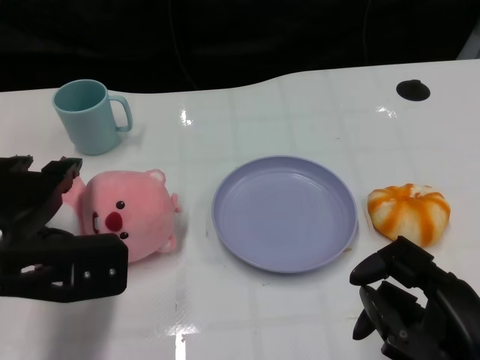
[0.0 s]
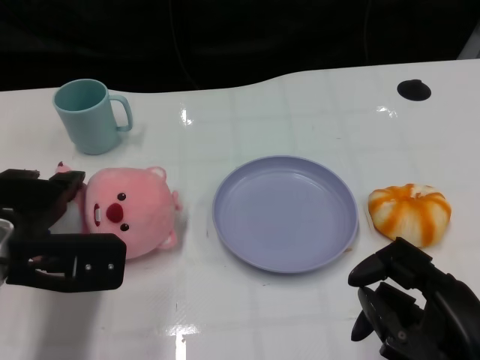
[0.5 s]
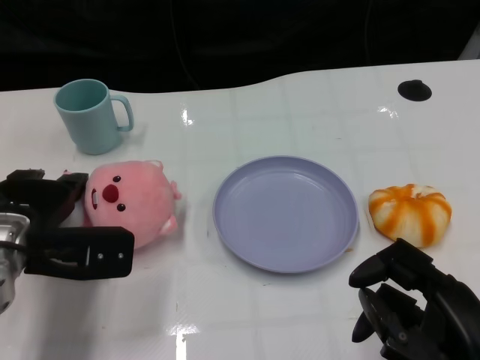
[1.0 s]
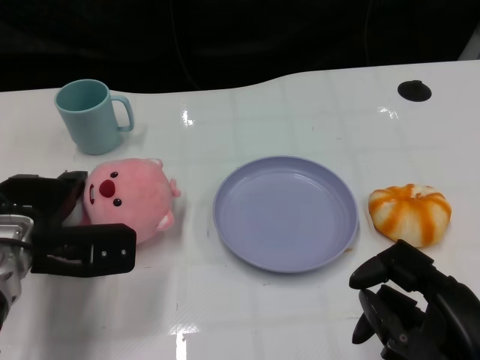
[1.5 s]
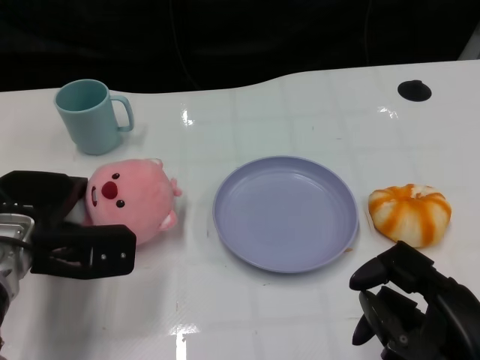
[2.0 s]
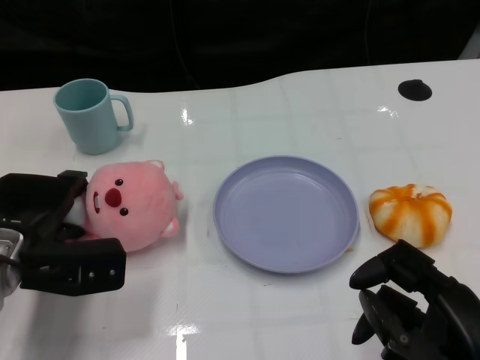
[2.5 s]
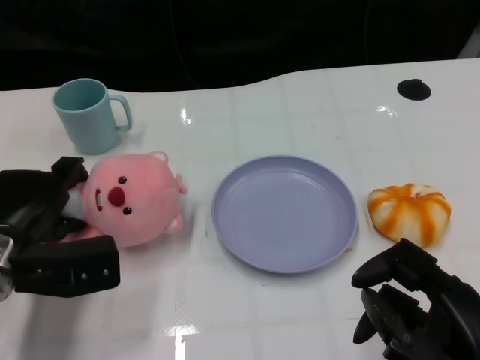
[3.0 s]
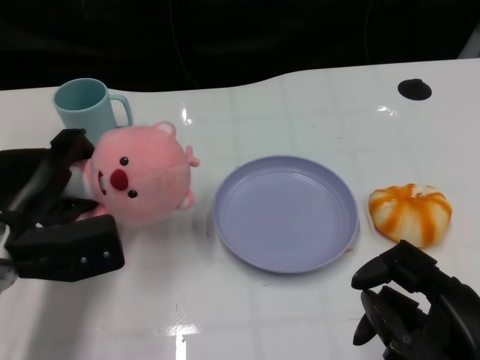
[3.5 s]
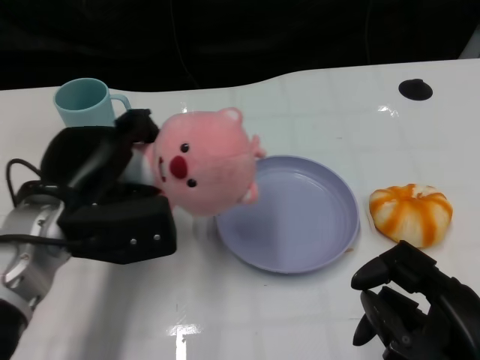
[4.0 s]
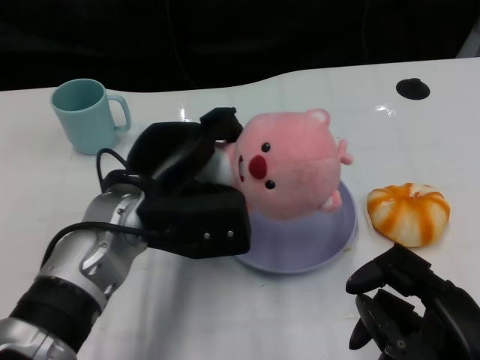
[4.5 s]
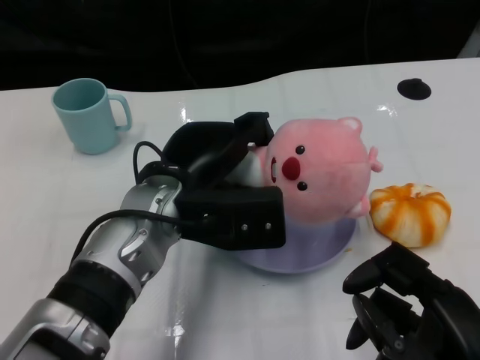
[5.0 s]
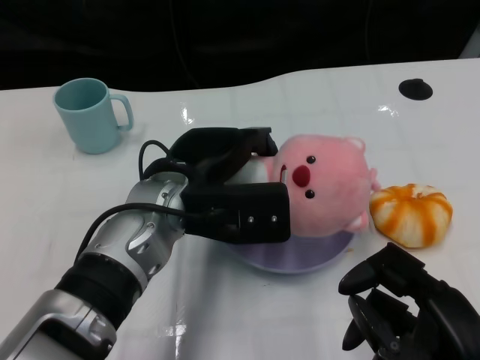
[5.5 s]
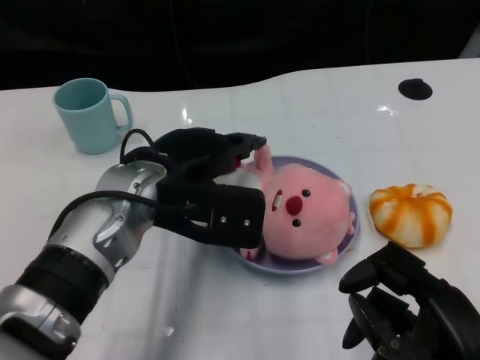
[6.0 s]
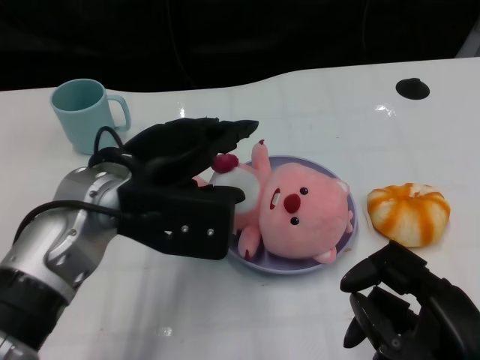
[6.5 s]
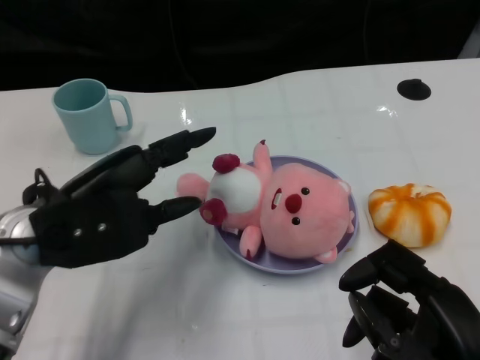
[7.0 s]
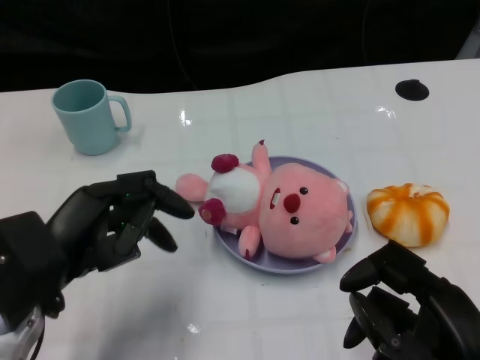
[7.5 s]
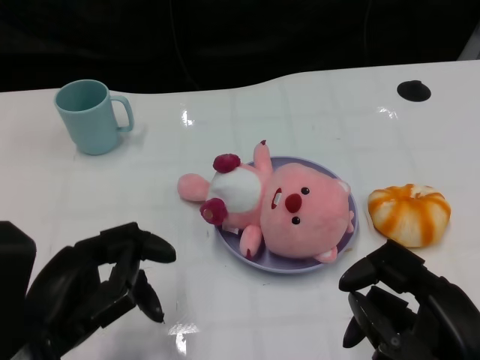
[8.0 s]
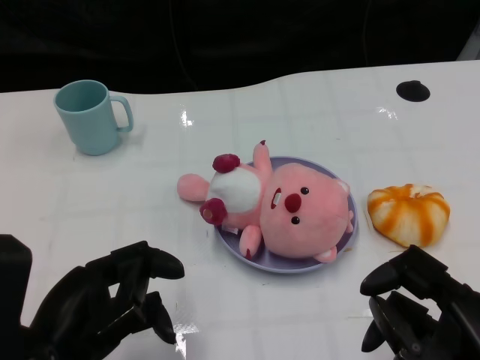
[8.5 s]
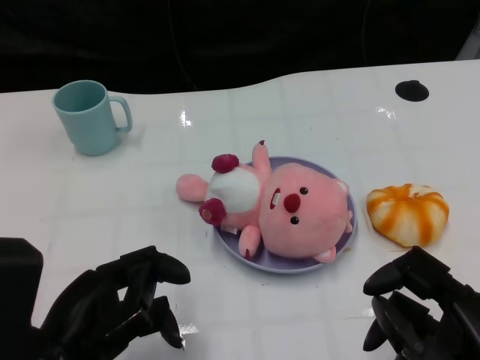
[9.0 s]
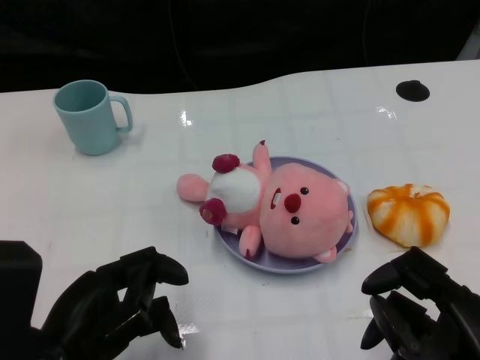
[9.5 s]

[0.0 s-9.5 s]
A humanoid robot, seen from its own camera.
Task of the whole recording: Pick up the doll on one side of the plate and place it into the plate.
Step, 0.0 to 3.0 s: Grasp the pink doll with the left gripper.
Step, 3.5 to 6.0 s: Place the pink doll into the plate with the left gripper.
0.0 to 2.0 s: The left hand shifts approximately 10 cm downward and forward.
2.0 to 4.0 s: The left hand moves roughly 5 cm.
4.0 to 5.5 s: The left hand is displaced to the right by about 10 cm.
5.5 to 7.5 s: The left hand moves to the left and backward, approximately 15 cm.
7.5 to 9.5 s: The left hand goes roughly 5 cm backward.

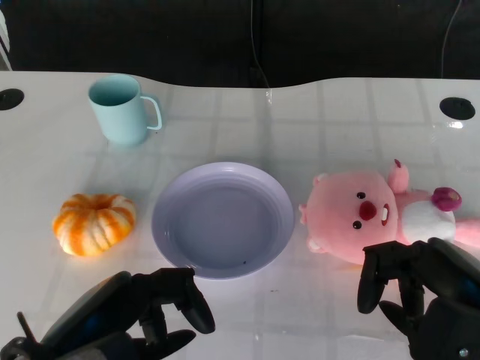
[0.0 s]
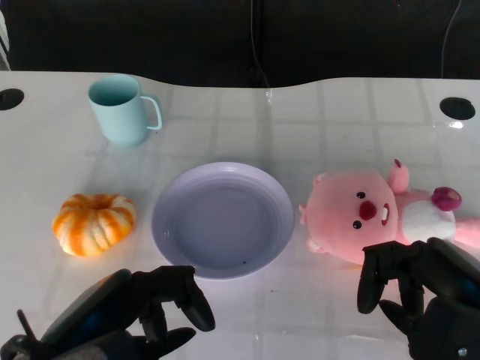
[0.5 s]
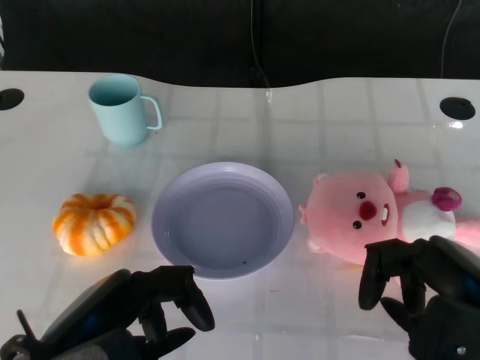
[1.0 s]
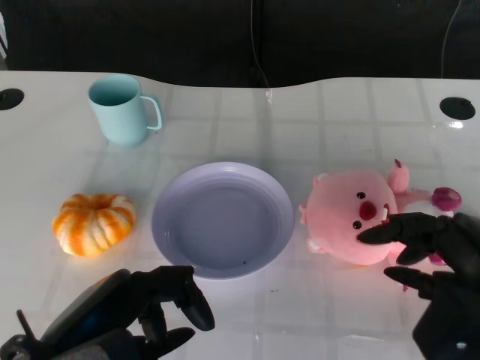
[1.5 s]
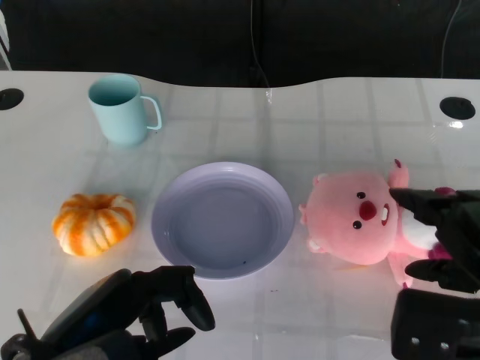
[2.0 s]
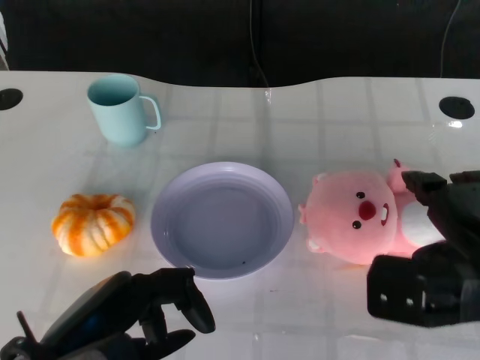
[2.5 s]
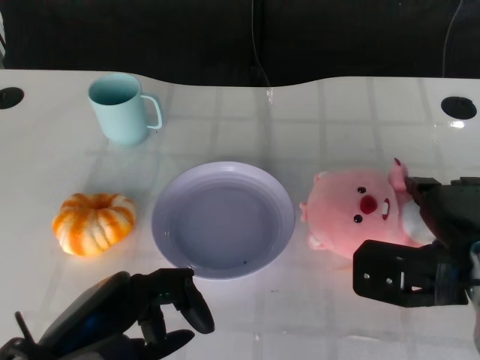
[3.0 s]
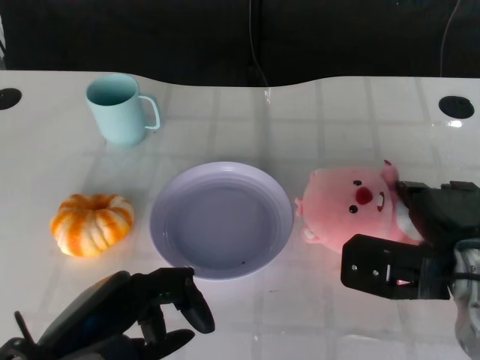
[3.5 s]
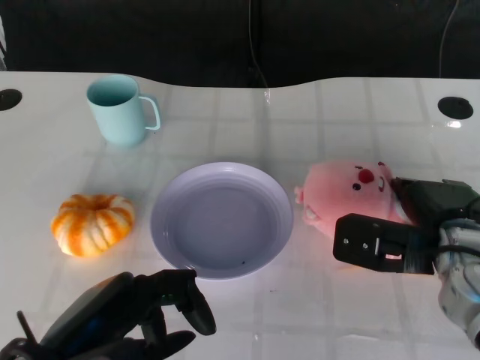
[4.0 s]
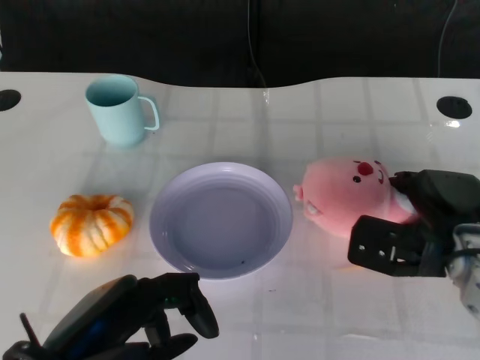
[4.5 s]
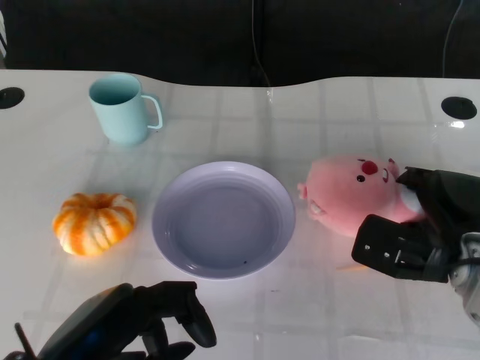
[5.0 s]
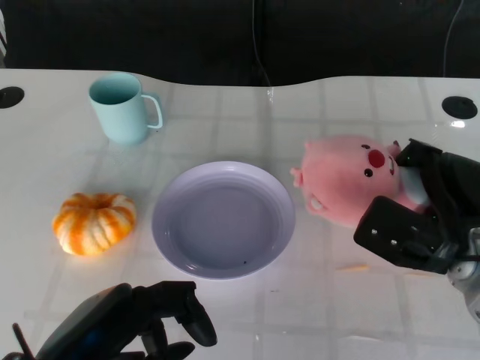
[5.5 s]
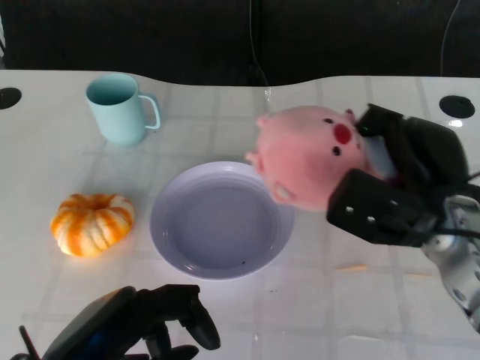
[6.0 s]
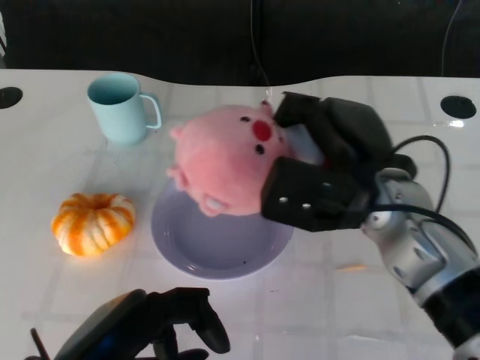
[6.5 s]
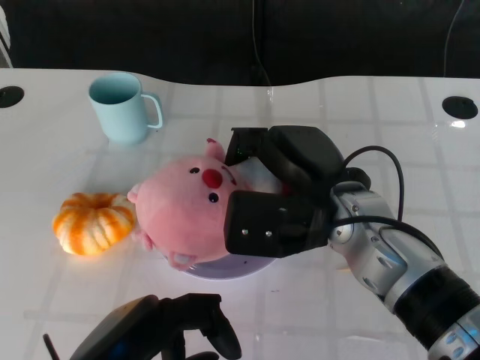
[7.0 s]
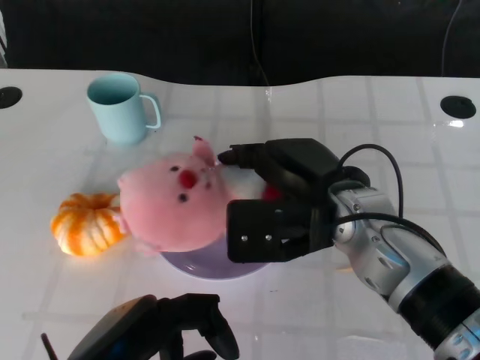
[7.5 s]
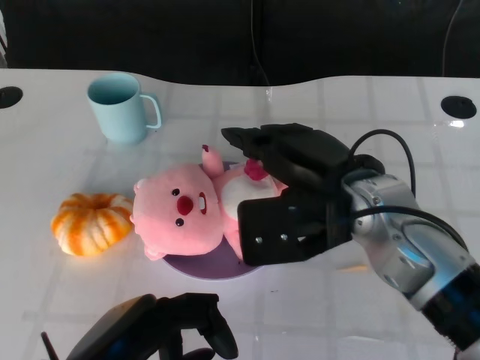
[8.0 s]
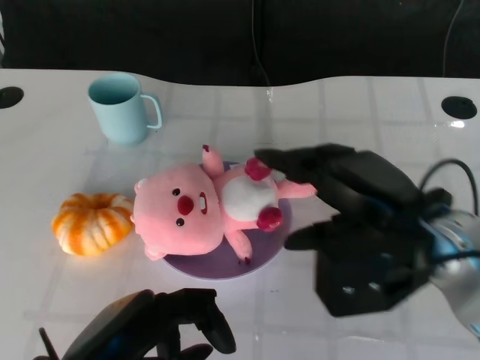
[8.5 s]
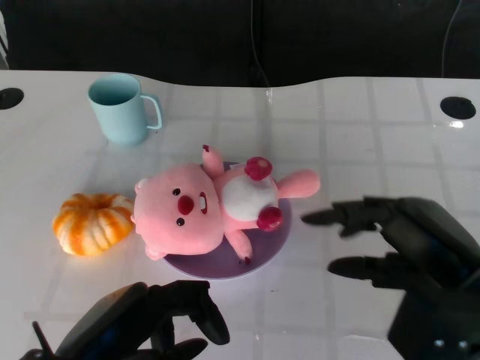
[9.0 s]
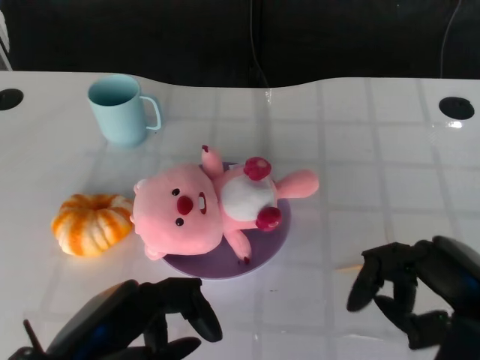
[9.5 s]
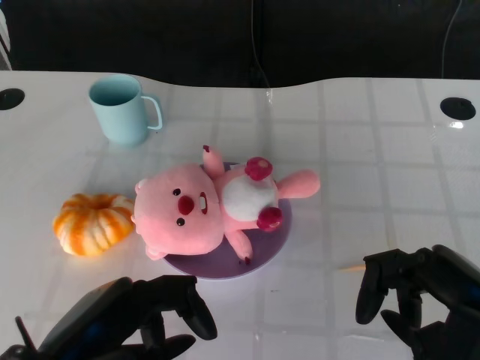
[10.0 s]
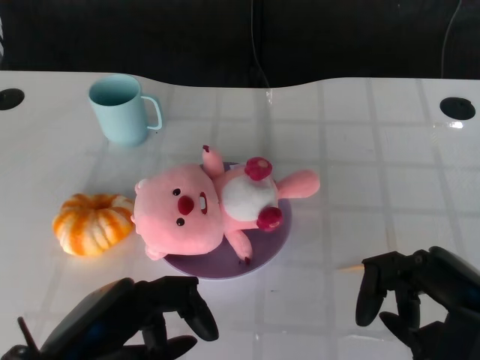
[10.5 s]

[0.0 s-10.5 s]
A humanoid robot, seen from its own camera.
Task of the whole recording: Pick up the doll on the other side of the plate and place it into the plate.
Step, 1.0 to 6.0 s: Grasp the pink doll with the right gripper.
Step, 6.5 to 8.0 s: Place the pink doll into the plate with the right gripper.
2.0 to 4.0 s: The right hand heads forward and downward, covering some 10 cm.
4.0 to 6.5 s: The right hand is displaced to the left and upward by approximately 10 cm.
6.5 to 8.5 s: The right hand changes place by approximately 5 cm.
8.5 to 10.5 s: The right hand shifts some 10 cm backward and to the right.

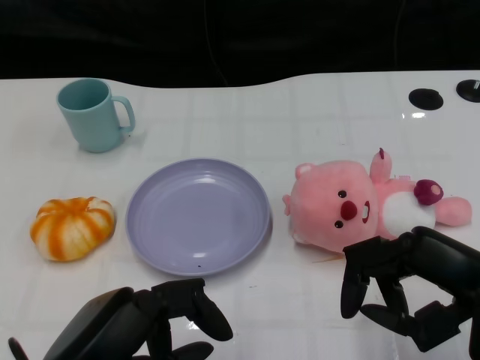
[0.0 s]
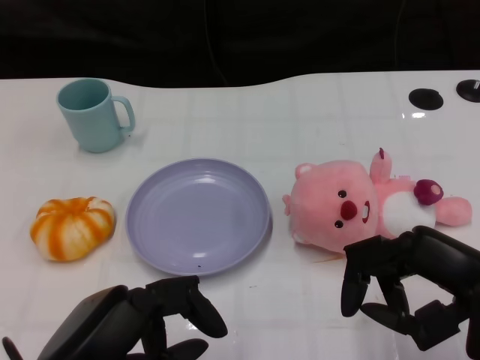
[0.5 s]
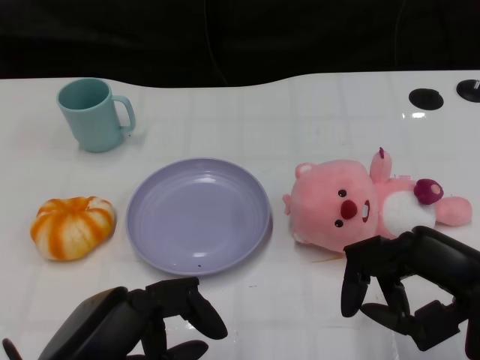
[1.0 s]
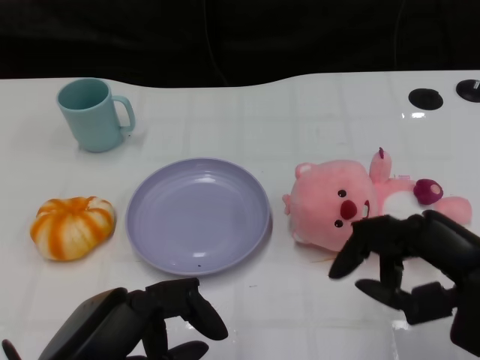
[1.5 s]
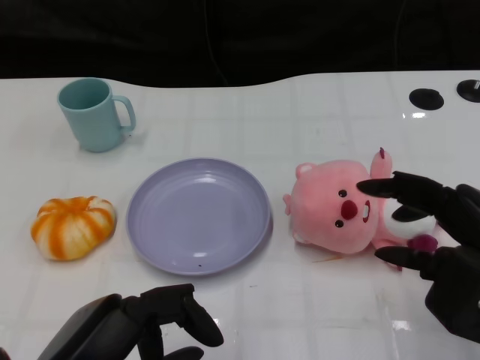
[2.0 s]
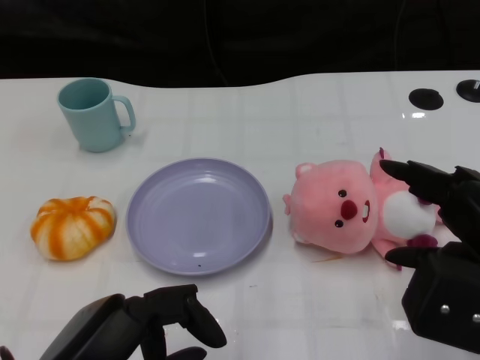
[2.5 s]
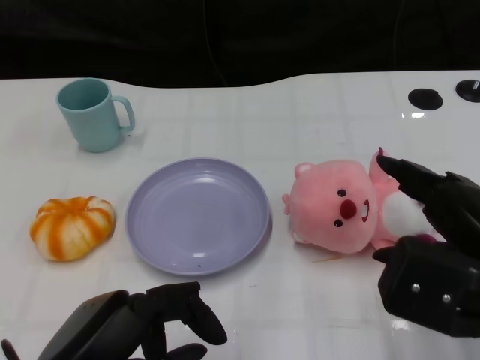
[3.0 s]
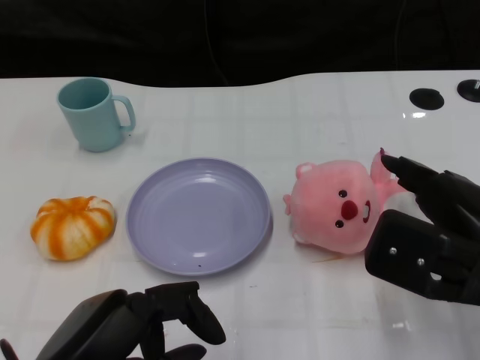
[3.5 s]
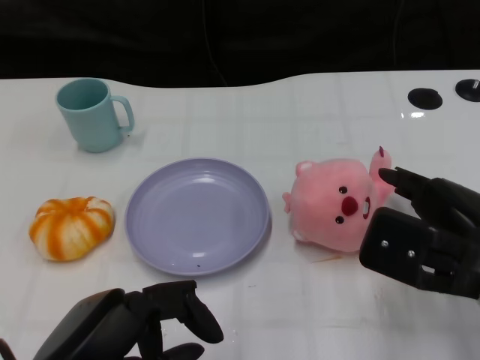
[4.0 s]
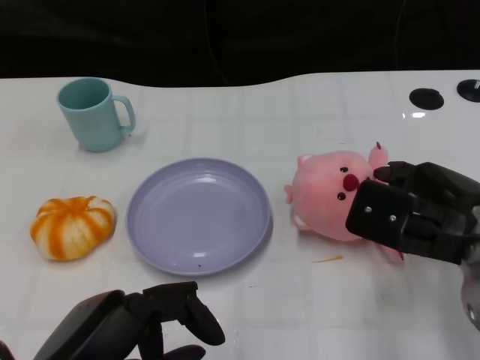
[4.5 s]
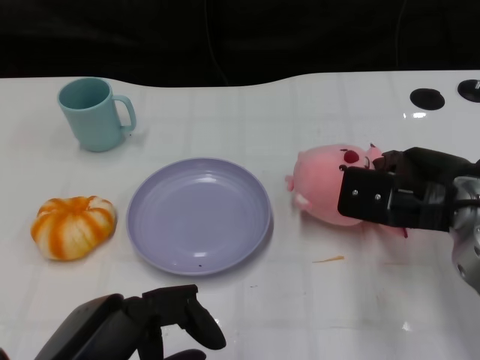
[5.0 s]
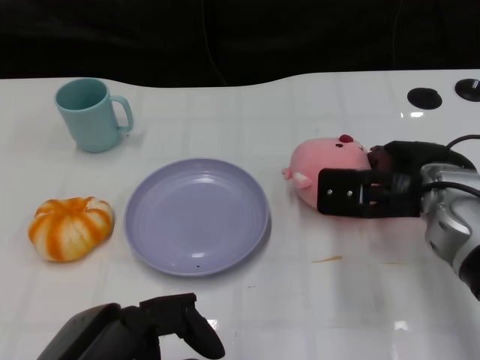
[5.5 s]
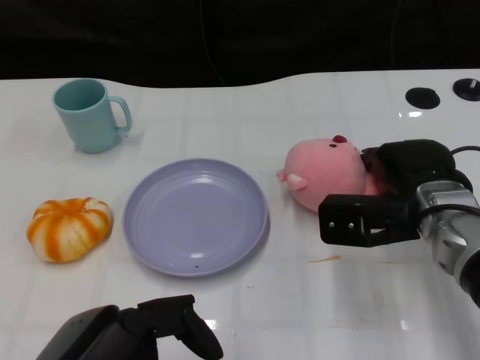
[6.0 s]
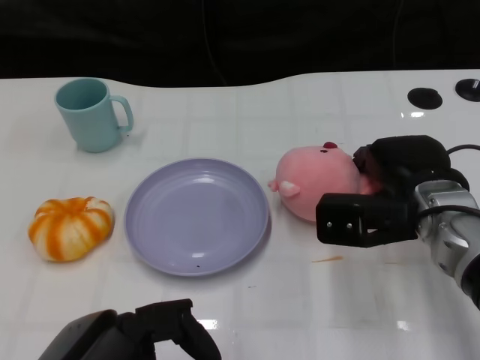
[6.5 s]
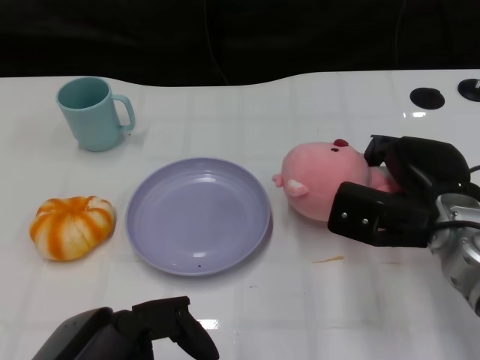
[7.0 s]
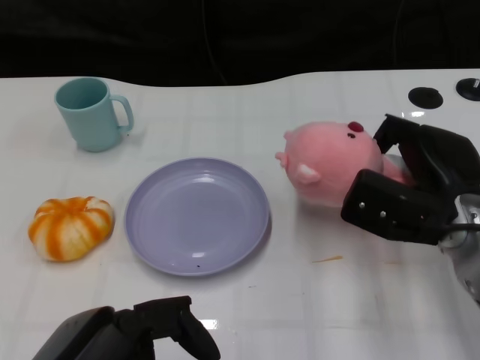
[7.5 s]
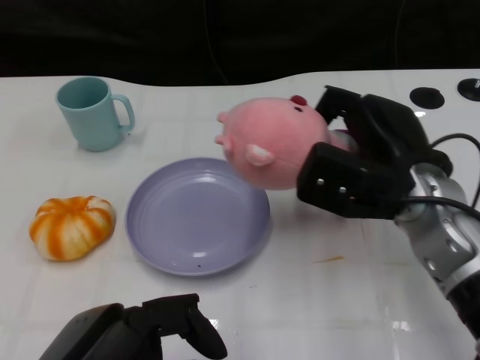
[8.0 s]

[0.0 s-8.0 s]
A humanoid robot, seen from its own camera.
Task of the whole recording: Pick up the doll on the other side of the plate and place it into the plate.
Step, 1.5 to 8.0 s: Grasp the pink doll with the right gripper.
2.0 to 4.0 s: The right hand shifts by some 5 cm.
4.0 to 6.0 s: The right hand travels forward by roughly 10 cm.
6.0 to 8.0 s: The right hand shifts by approximately 5 cm.
